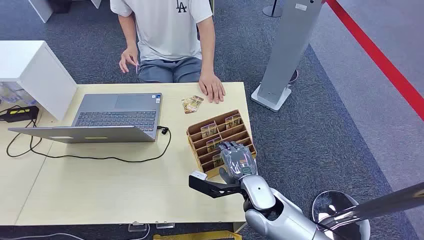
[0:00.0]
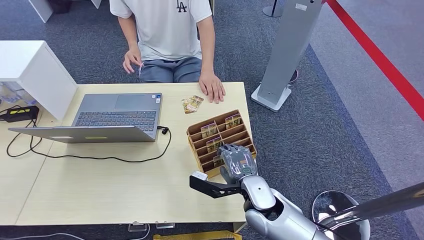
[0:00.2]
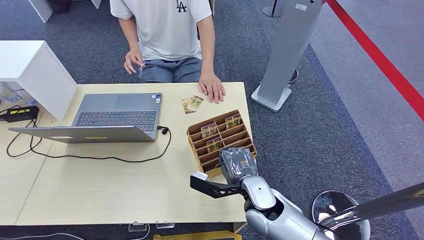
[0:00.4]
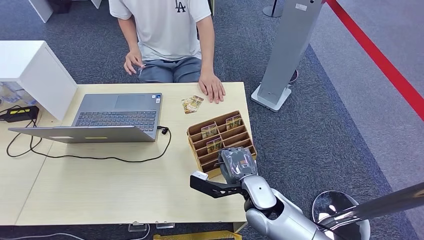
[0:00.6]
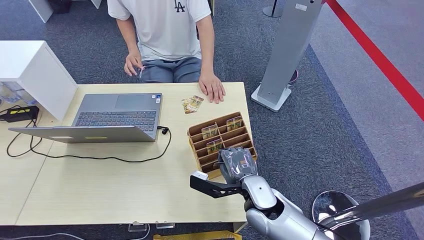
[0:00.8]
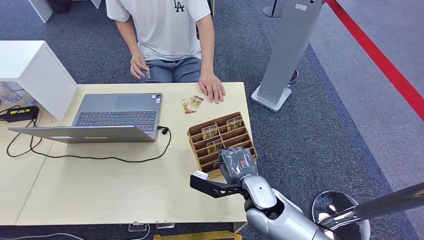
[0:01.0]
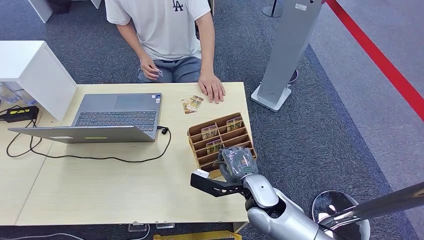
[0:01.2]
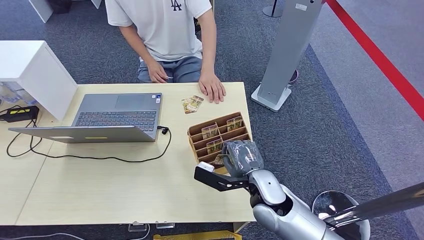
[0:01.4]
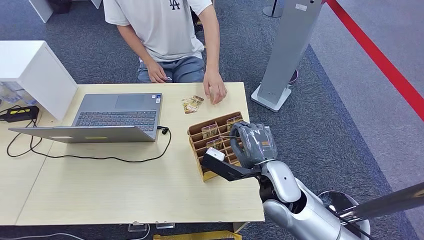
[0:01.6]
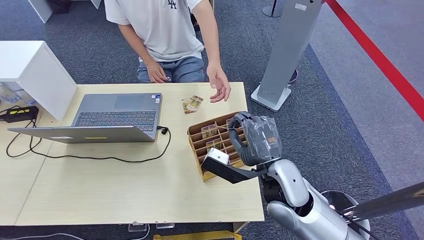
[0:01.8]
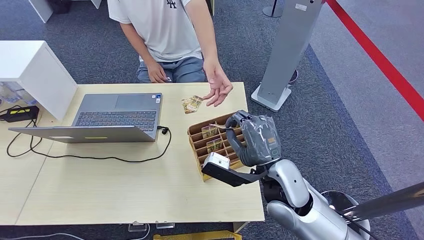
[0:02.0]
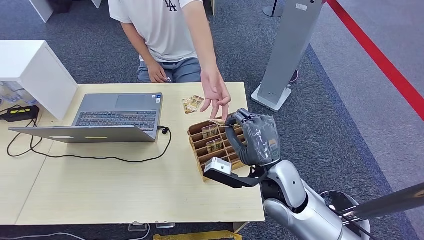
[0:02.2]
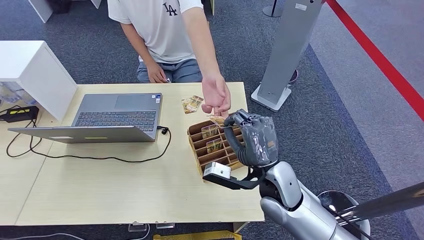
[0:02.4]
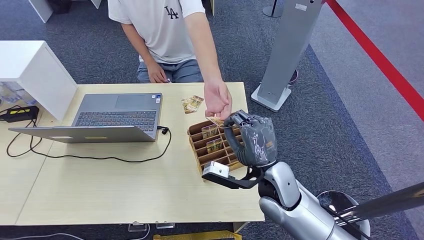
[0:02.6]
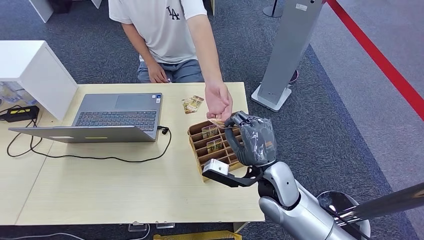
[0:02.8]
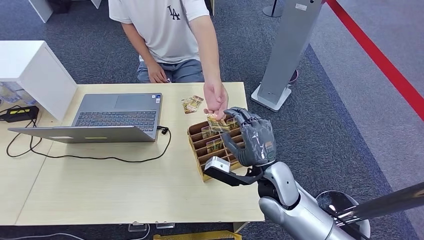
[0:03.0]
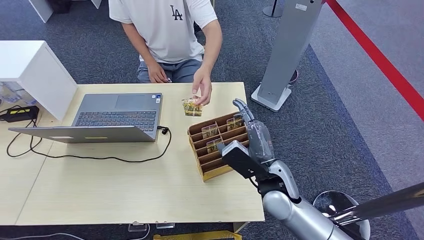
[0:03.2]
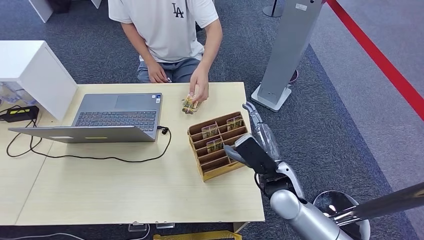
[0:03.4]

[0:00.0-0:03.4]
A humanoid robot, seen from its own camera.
Step, 0:00.0 to 0:01.8: Pick up the room card from the card holder.
Step, 0:02.0 to 0:03.4: Hand the room card to the target.
0:01.6 to 0:03.4: The right hand is displaced downward and to the right by some 10 cm.
